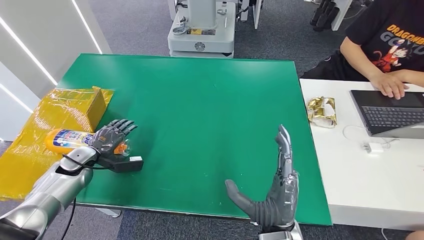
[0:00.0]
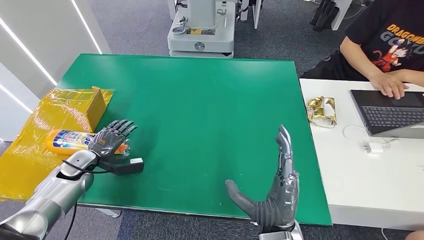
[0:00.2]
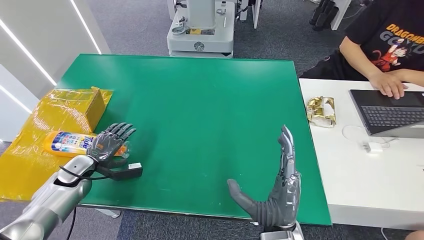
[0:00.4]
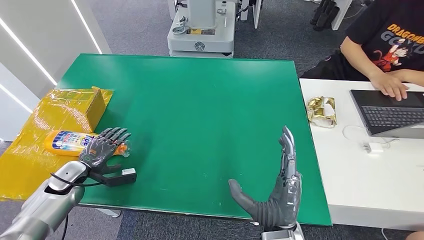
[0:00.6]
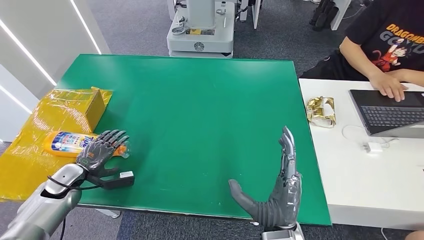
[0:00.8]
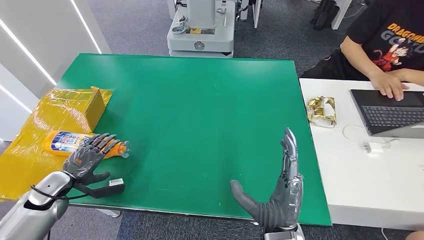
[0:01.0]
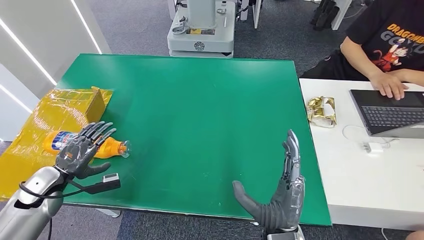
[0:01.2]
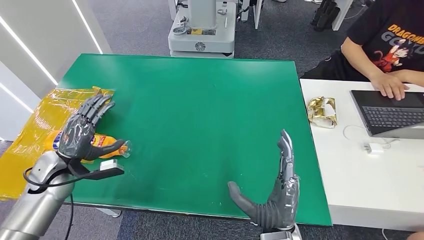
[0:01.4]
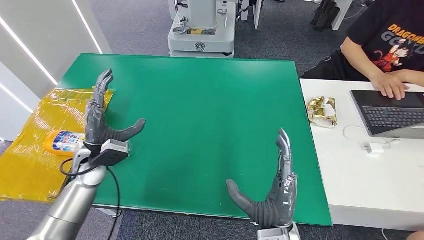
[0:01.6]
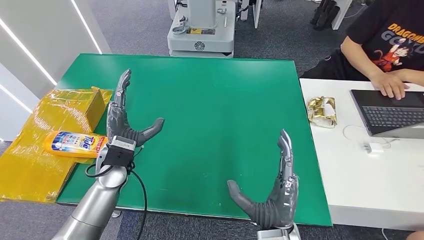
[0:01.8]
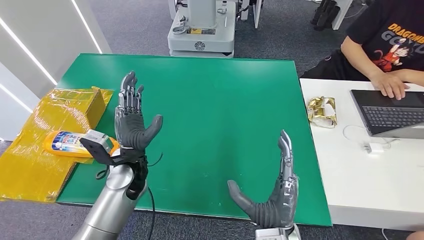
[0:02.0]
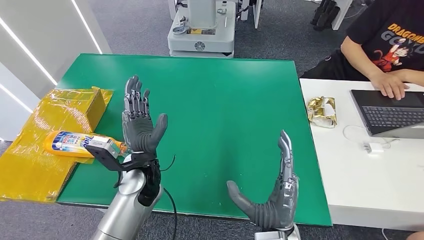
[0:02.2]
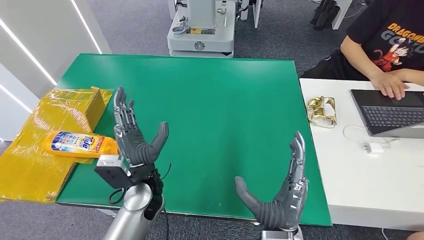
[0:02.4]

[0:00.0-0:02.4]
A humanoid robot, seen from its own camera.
Step, 0:00.0 to 0:02.4: Turn the bottle to the front side.
0:00.0 to 0:01.2: The left hand travels backward by approximately 10 cm.
0:01.2 to 0:02.4: The left hand goes roughly 30 cm to the right.
